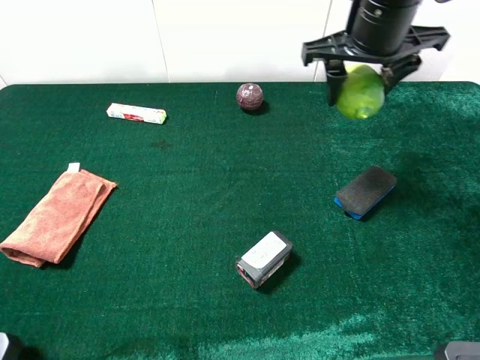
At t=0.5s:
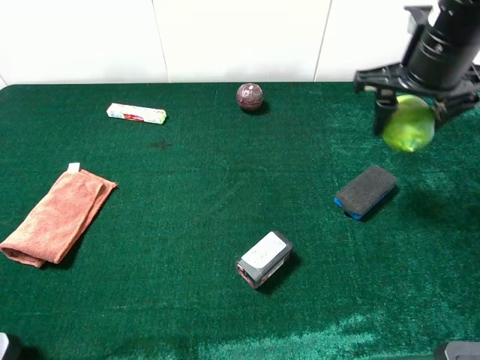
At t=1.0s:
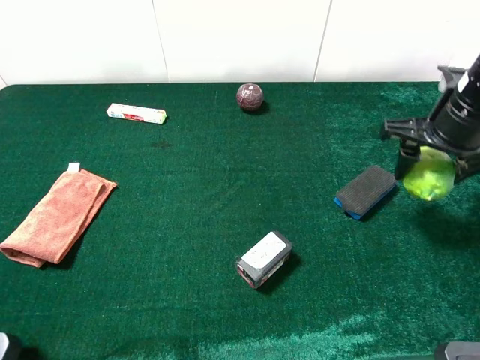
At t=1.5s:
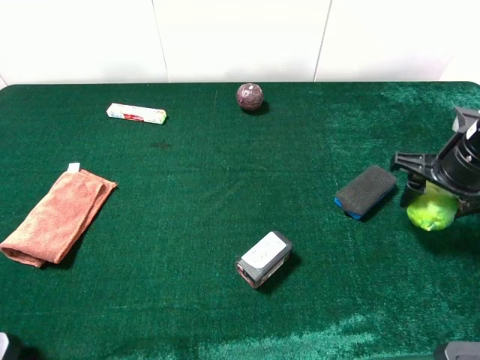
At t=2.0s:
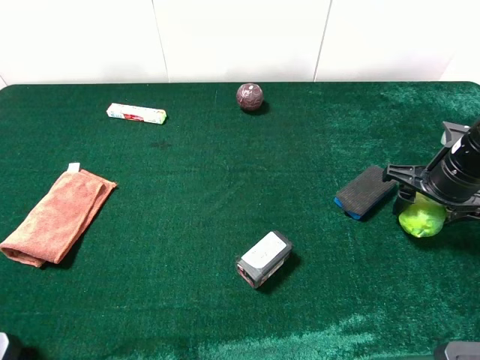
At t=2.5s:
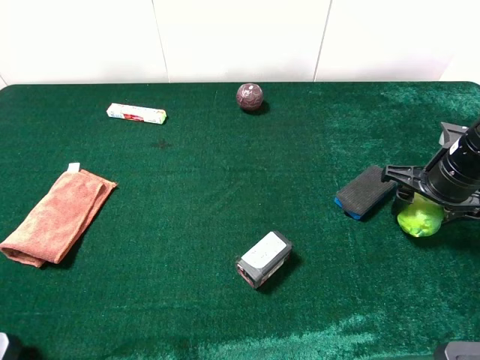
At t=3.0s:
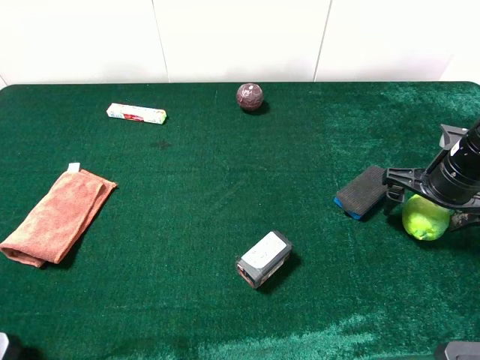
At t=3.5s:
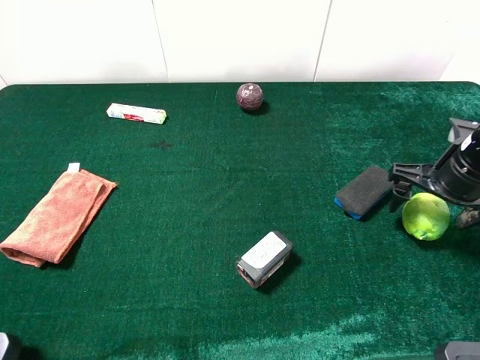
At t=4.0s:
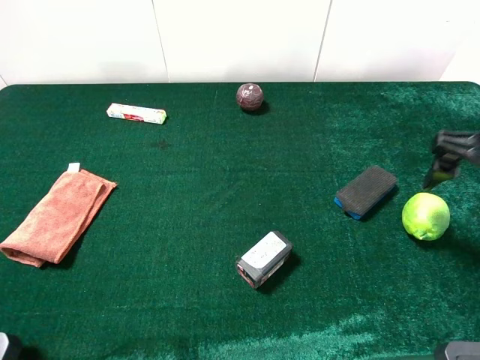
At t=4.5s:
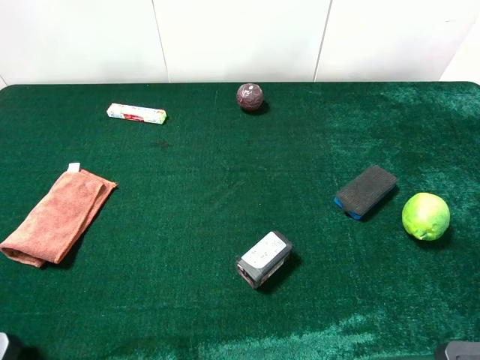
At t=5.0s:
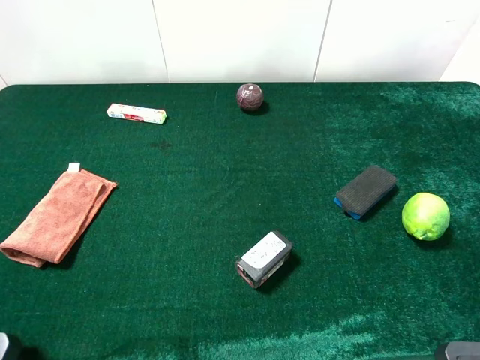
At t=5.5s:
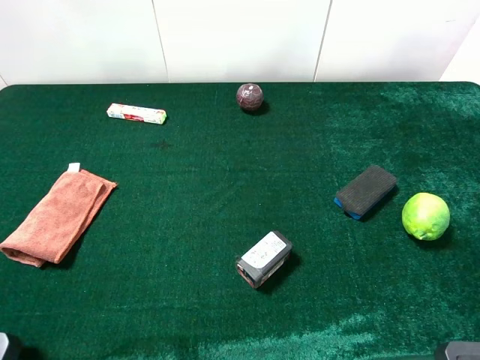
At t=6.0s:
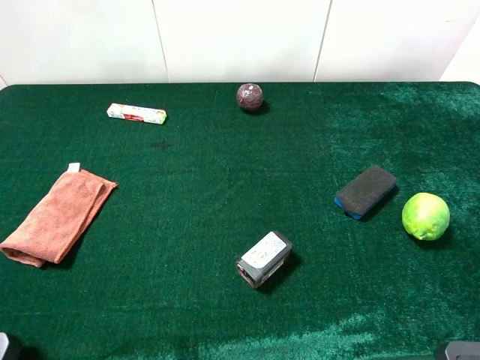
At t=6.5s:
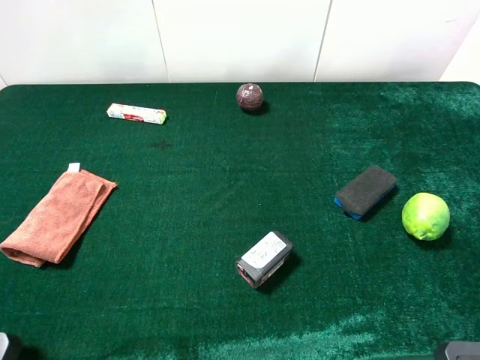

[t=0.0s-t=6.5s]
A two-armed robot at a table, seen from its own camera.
Task of the whole recording: the gripper move the object.
Step, t=0.0s to t=3.5s: Place the green lemon on the table with the right gripper.
t=0.0s to t=2.0s: The right gripper goes roughly 20 cm downward, to the right and backward.
t=2.0s to t=4.5s: The right gripper moves upward and backward, some 25 cm, and opens up.
